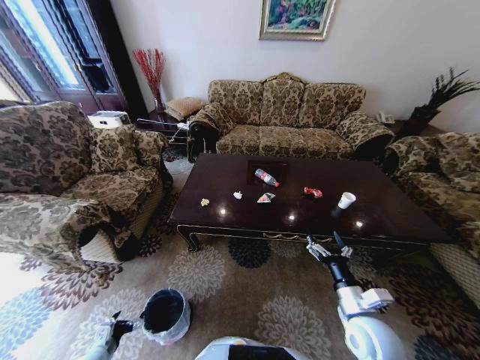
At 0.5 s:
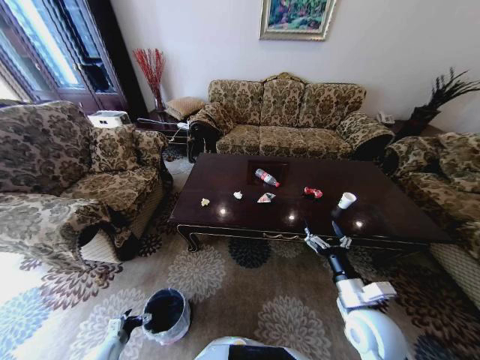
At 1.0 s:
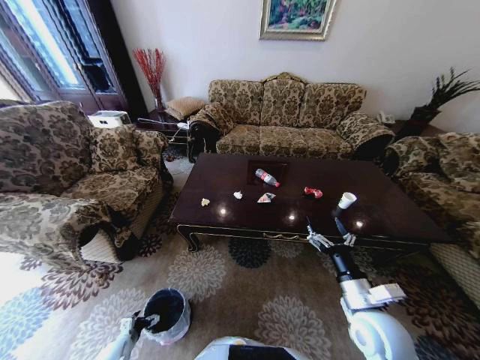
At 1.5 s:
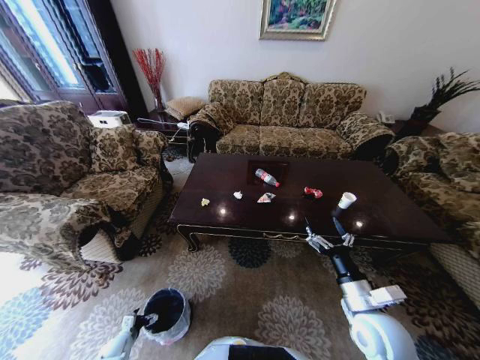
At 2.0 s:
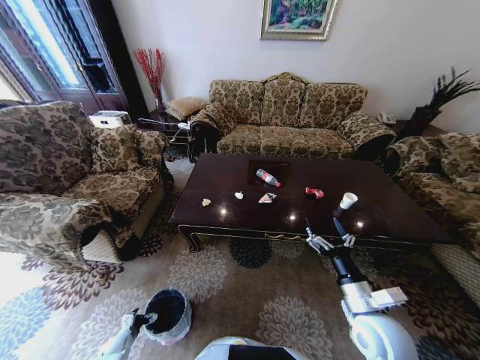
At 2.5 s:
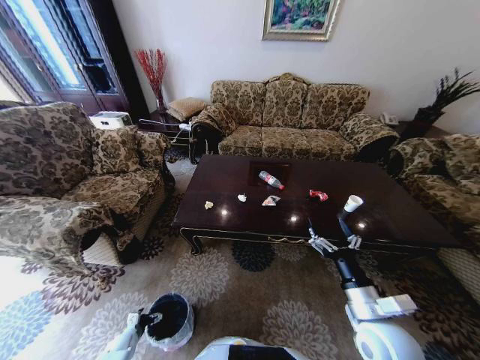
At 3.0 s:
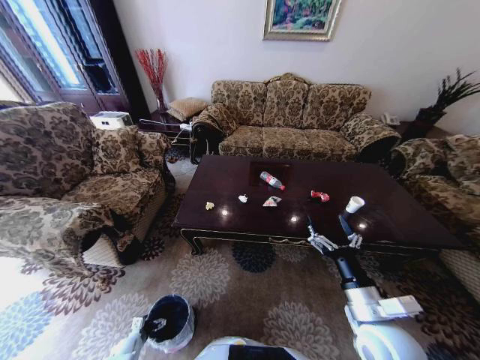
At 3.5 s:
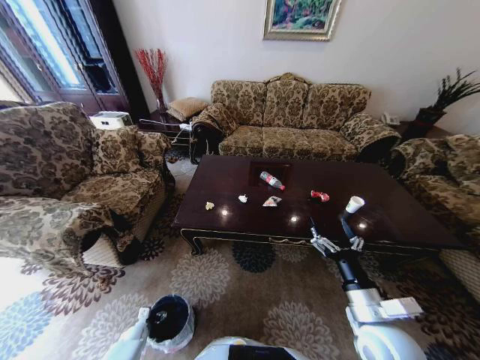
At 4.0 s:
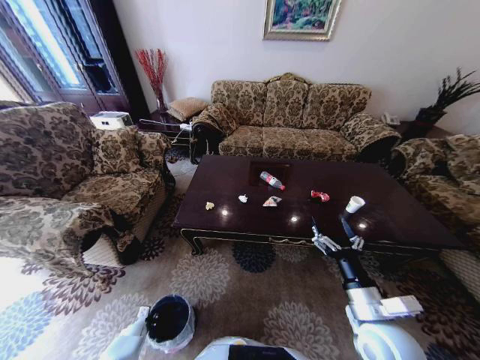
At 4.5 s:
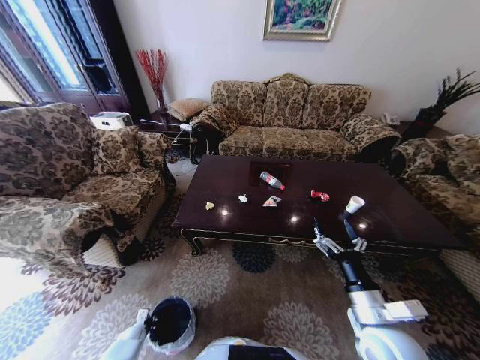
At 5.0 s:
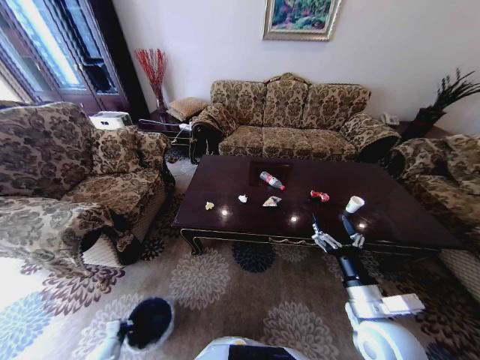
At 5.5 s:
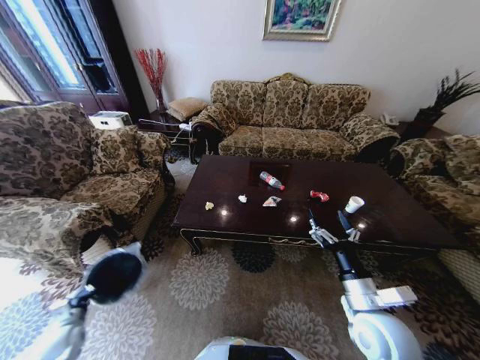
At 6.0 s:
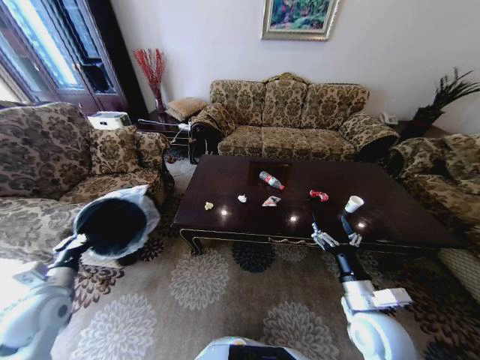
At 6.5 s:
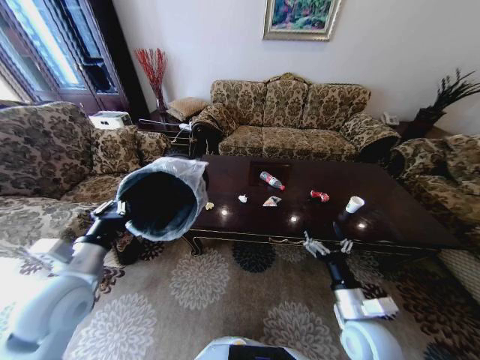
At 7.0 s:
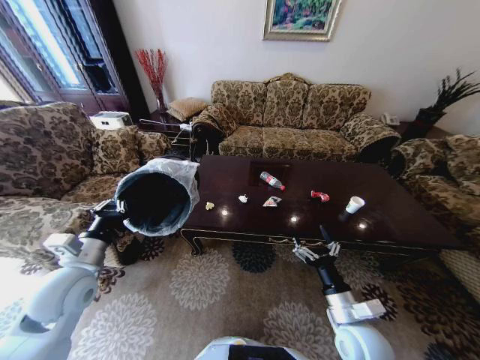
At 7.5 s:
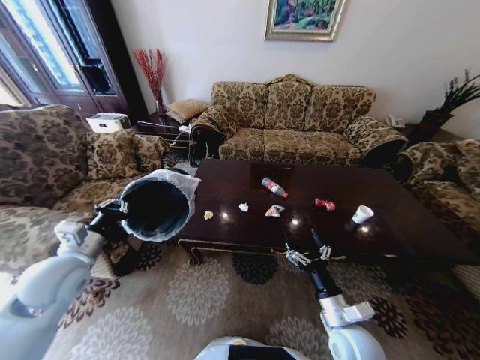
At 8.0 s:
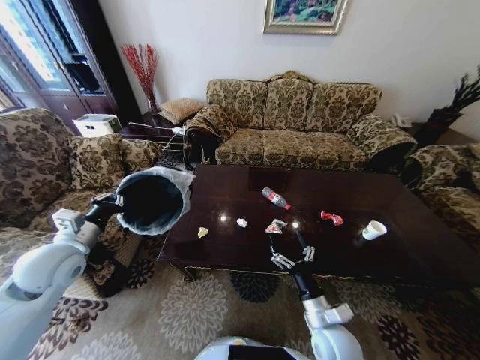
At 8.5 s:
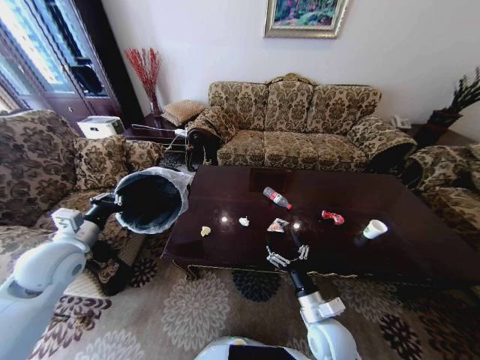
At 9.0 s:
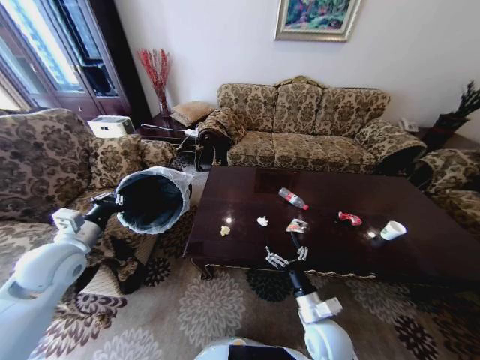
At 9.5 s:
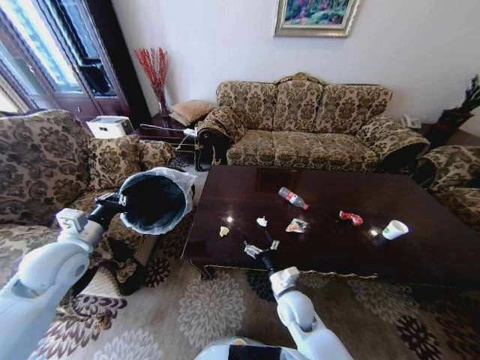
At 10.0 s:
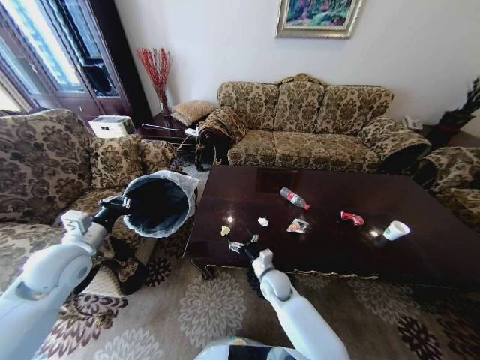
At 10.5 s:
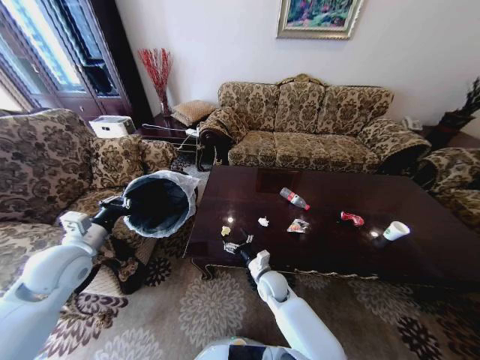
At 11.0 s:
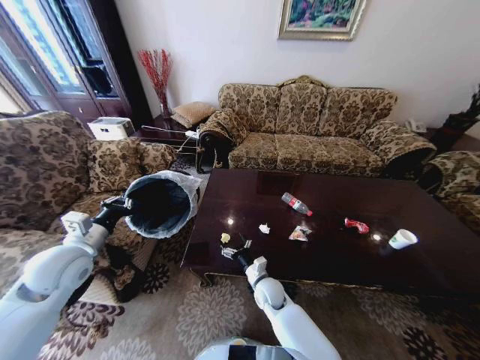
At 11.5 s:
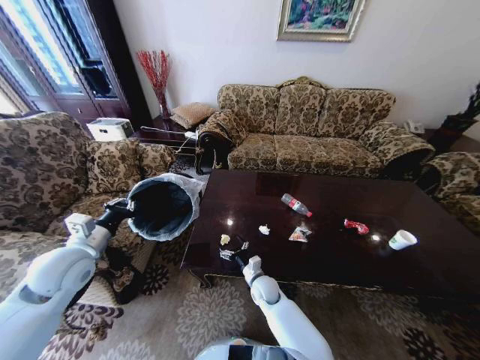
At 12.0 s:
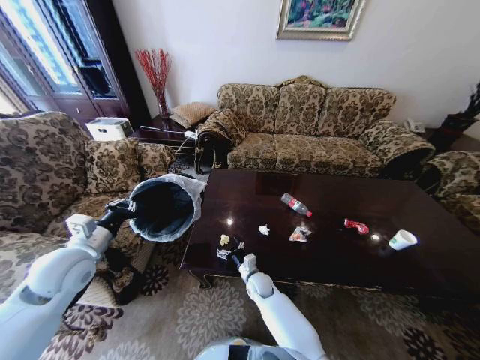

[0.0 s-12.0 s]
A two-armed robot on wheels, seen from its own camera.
Task of the whole recording: Move to the front of the table and place the trash on the table into the trash bin.
0.0 to 2.0 s: The left gripper travels downward by some 15 cm.
2.0 to 4.0 s: The left gripper shifts by approximately 5 cm, and closes its fingers.
4.0 to 6.0 s: The left gripper travels upward by some 40 cm.
6.0 to 8.0 s: The right gripper goes about 10 cm downward and to the left. Meanwhile the left gripper moves upward and forward, approximately 10 cm, and moves about 10 cm to the right and comes back.
8.0 to 10.0 s: The right gripper heads forward, to the left and downward, covering some 20 cm.
10.0 to 12.0 s: The right gripper is displaced downward by about 5 cm.

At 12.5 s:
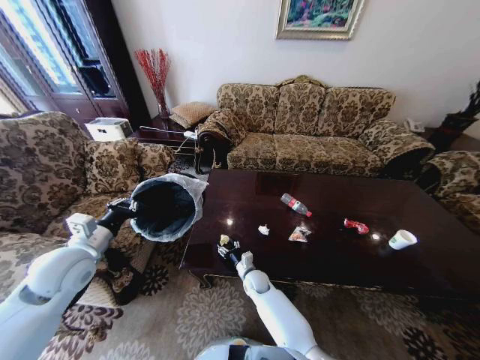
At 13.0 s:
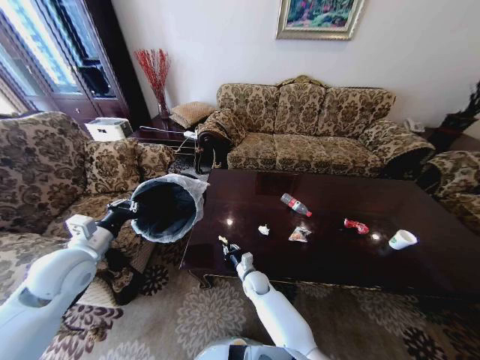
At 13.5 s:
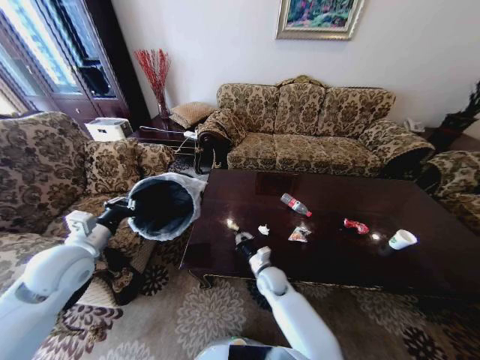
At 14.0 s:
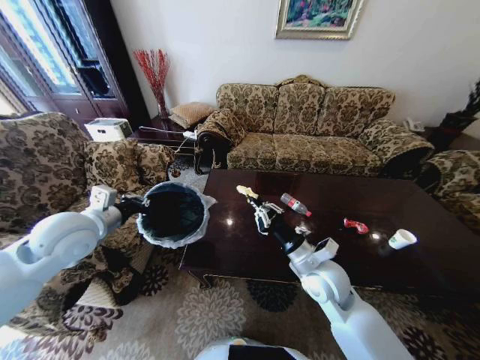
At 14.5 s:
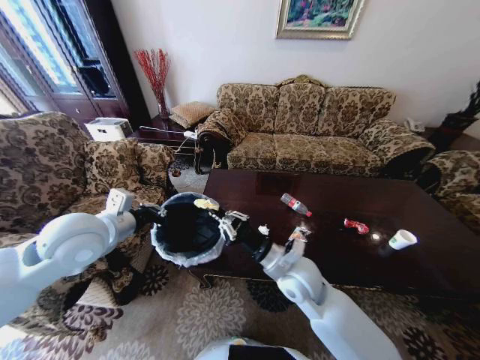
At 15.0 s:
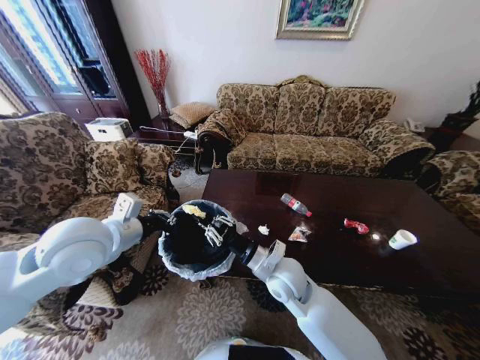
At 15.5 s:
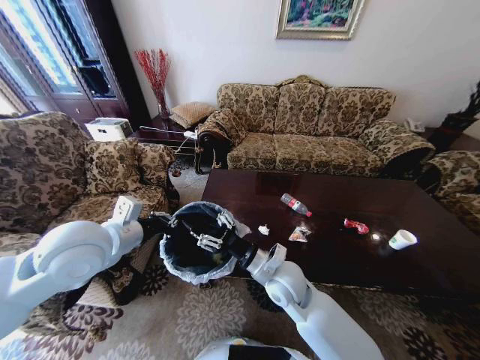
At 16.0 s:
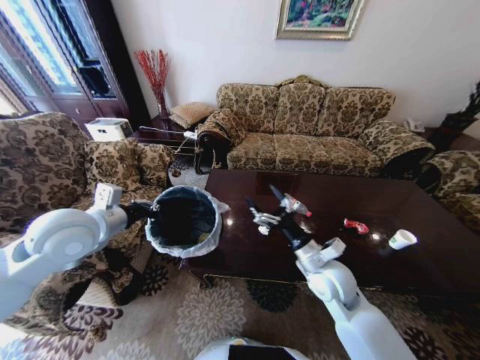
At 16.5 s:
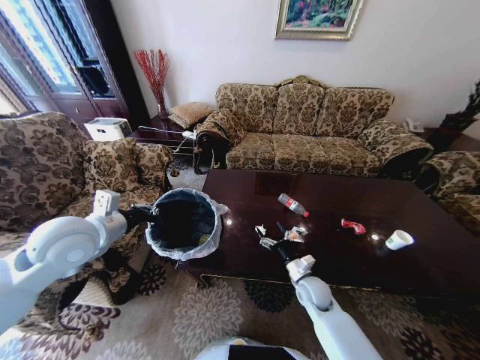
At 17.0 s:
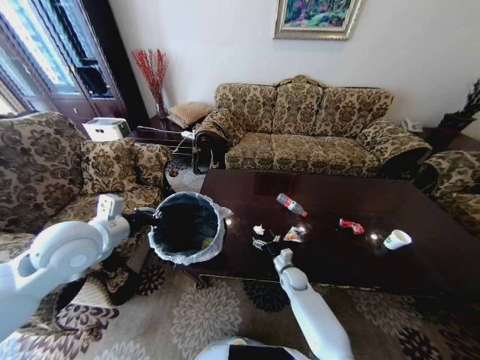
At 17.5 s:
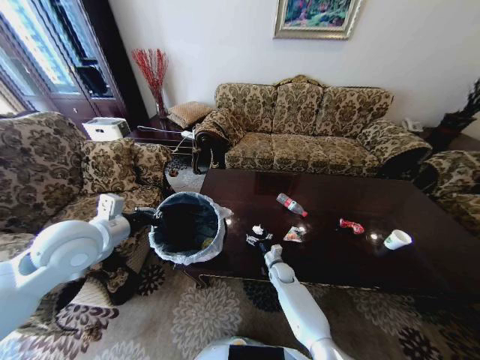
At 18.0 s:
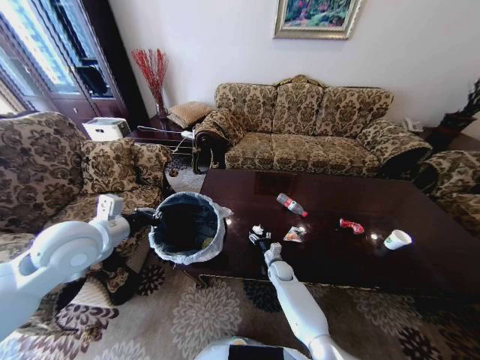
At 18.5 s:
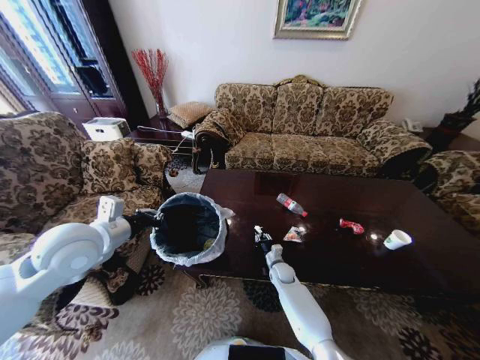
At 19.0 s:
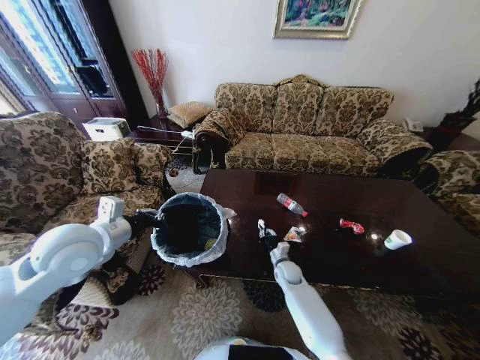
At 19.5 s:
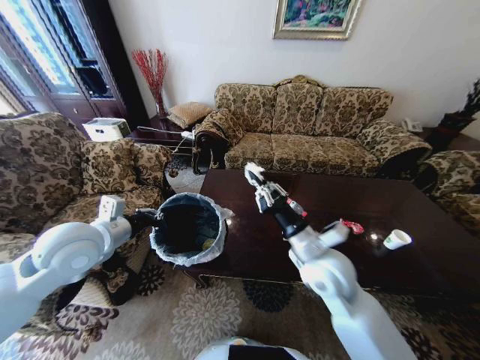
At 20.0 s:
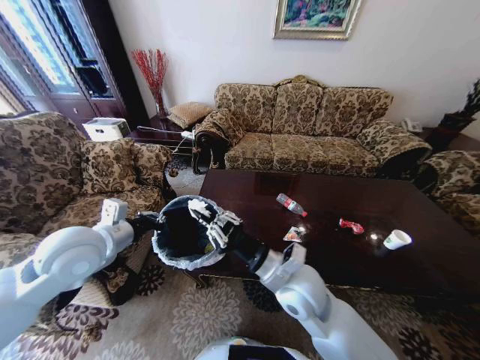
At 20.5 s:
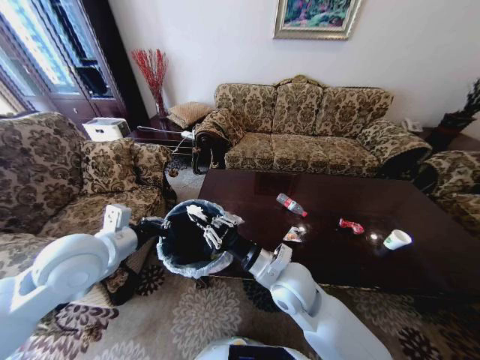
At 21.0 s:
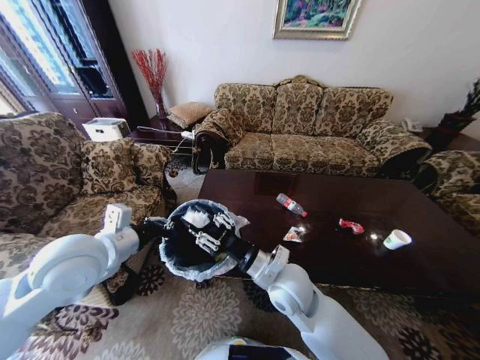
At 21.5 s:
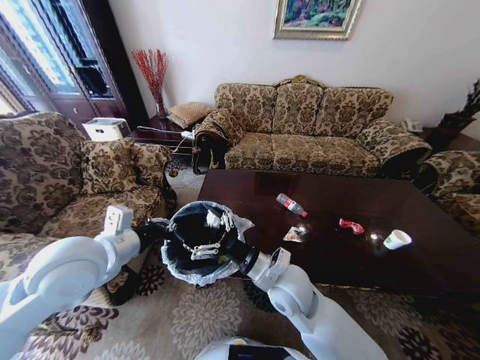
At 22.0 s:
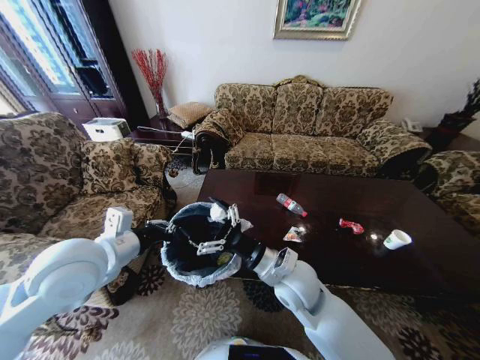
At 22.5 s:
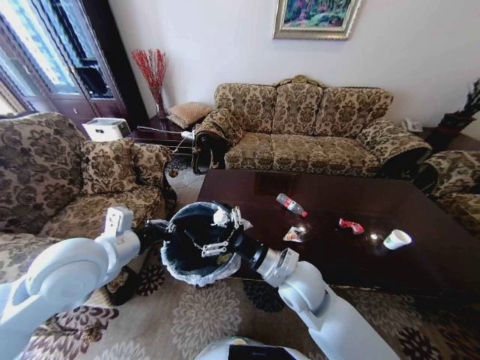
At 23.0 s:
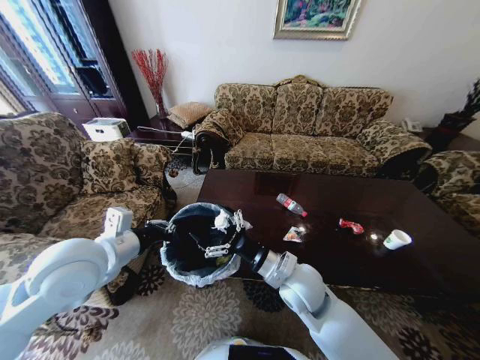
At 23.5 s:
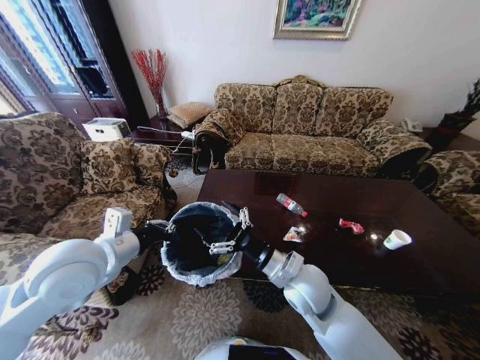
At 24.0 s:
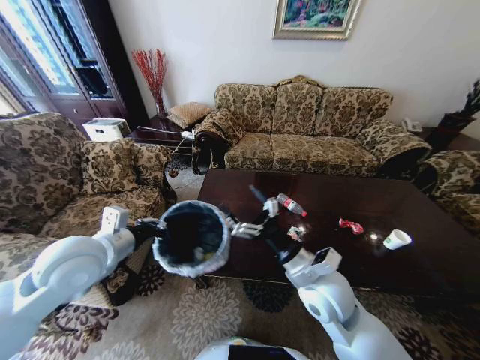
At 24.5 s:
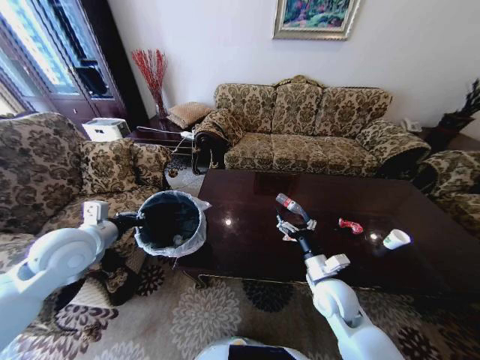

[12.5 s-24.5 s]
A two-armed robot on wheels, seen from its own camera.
Task of the whole recording: Move to the front of the table and place the trash on the table into the trash bin.
12.5 to 14.5 s: The right gripper is displaced upward by some 25 cm, and closes its fingers. The left gripper is displaced upward and to the right by roughly 10 cm.
14.5 to 16.5 s: The right gripper shifts about 20 cm downward and to the right, and opens its fingers.
16.5 to 18.5 s: The right gripper heads downward, forward and to the left, covering roughly 15 cm, and closes.
18.5 to 20.5 s: The right gripper is displaced upward and backward by roughly 35 cm.
20.5 to 22.5 s: The right gripper opens its fingers.
22.5 to 24.5 s: The right gripper heads to the right and downward, covering about 15 cm. Meanwhile the left gripper travels to the left by roughly 10 cm.

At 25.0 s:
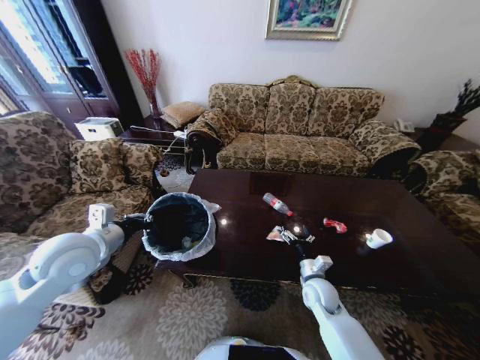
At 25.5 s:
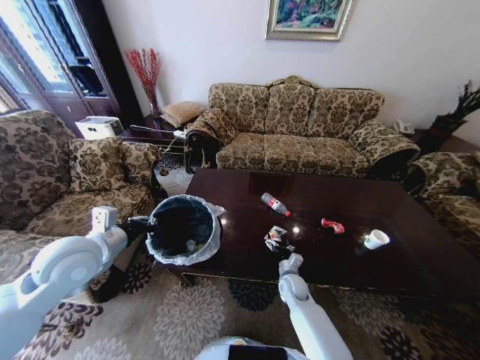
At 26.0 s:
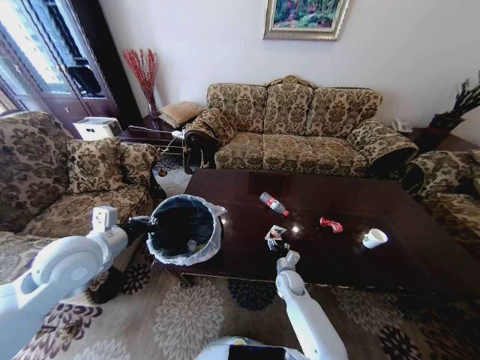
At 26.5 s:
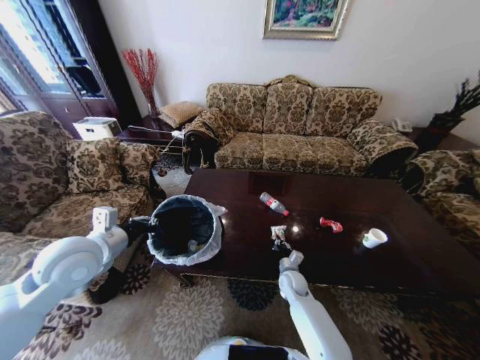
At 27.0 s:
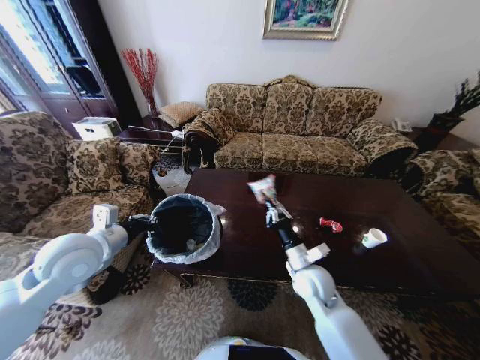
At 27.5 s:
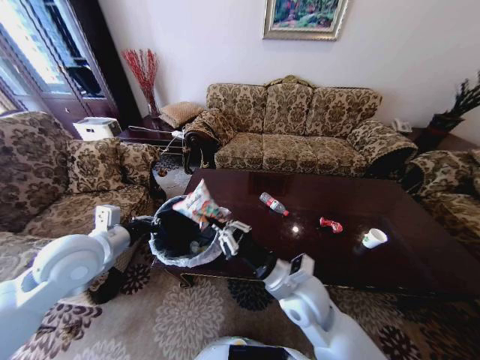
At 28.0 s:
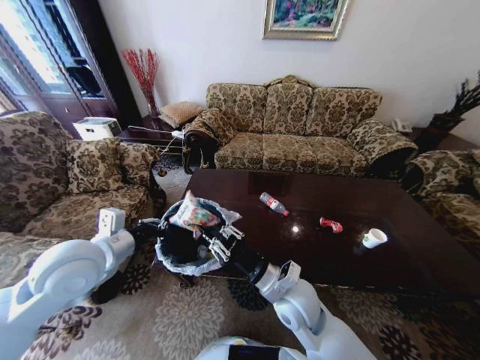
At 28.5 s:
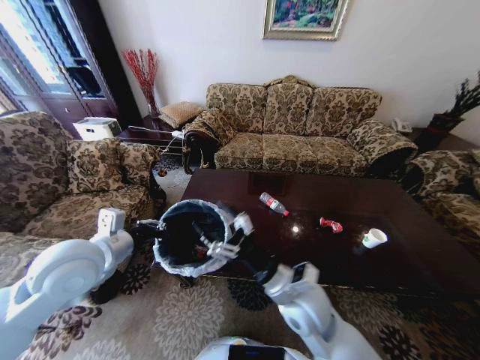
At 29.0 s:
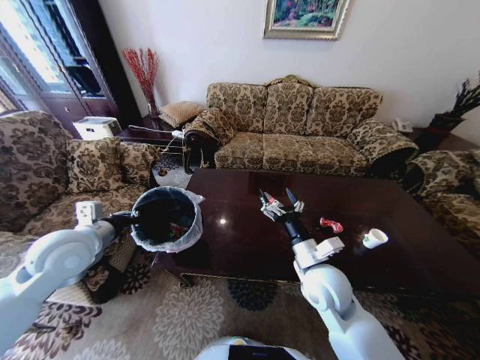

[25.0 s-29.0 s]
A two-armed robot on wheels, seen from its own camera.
Task of the whole recording: Move to the front of the table and place the trash on the table into the trash bin.
25.0 to 27.0 s: The right gripper heads upward and to the left, covering about 10 cm, and closes.
27.0 to 29.0 s: The right gripper shifts approximately 10 cm upward, and opens.
